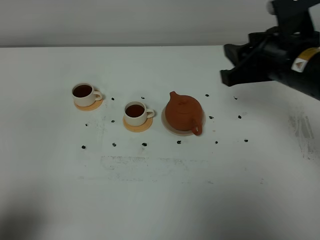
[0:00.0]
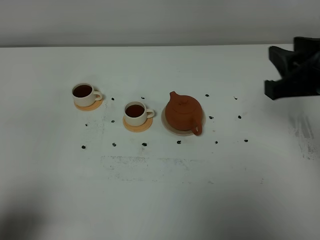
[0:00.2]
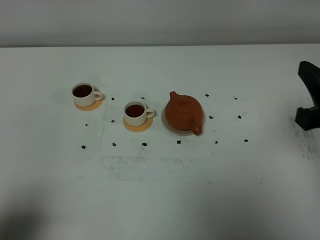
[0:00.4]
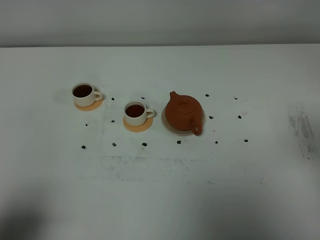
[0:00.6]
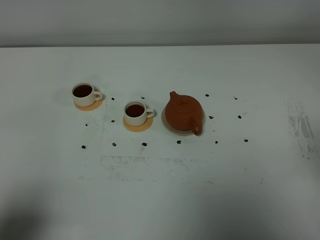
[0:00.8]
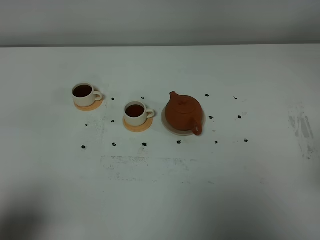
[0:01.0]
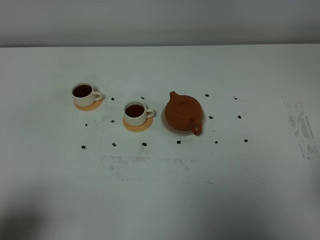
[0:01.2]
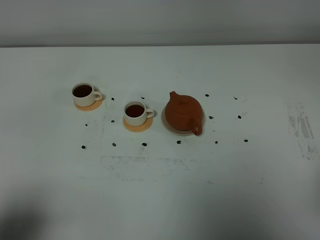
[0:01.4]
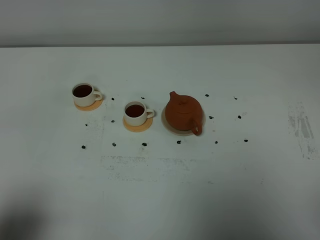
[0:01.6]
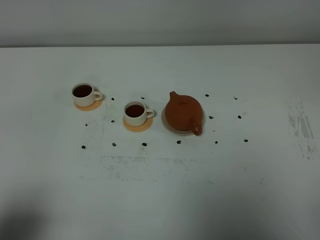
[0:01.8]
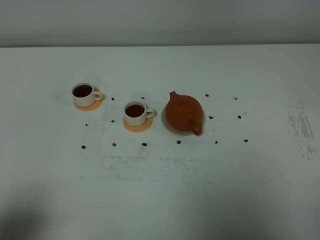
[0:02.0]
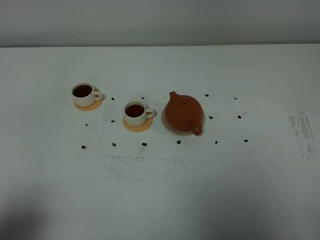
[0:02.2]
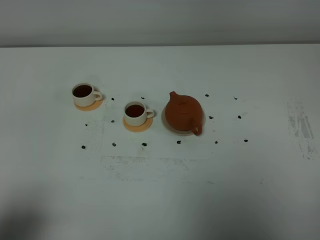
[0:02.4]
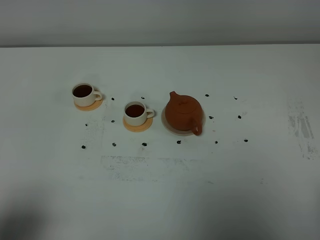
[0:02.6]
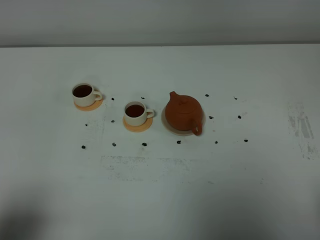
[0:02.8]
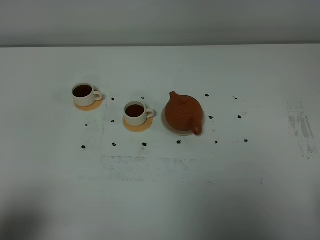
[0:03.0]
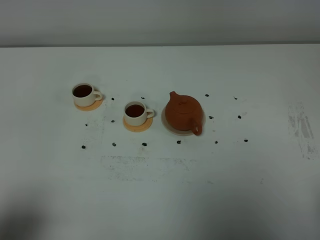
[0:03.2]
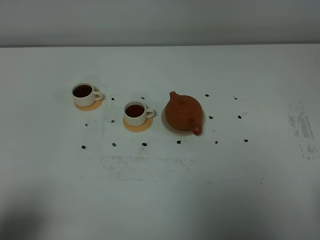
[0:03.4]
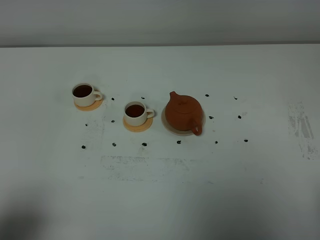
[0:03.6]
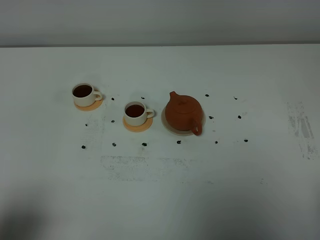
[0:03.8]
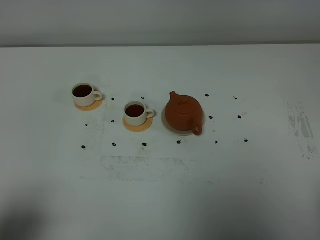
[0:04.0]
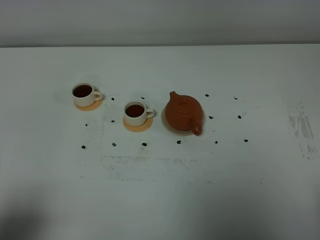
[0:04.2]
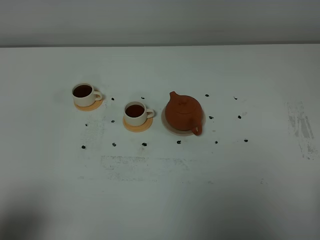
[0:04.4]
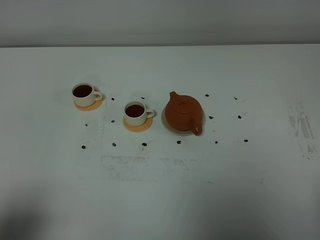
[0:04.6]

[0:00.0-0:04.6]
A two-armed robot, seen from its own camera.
Task of the whole recording: grasp the brown teapot and pour the tea into the two white teacups one by one, put the brown teapot back in its original place.
0:00.0 to 0:01.6: The right gripper is displaced backward by about 25 cm, and closes up.
0:03.0 to 0:04.6: Neither gripper changes place.
